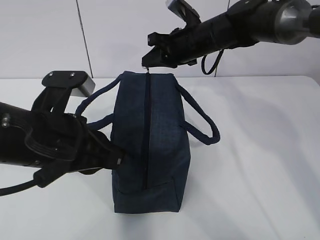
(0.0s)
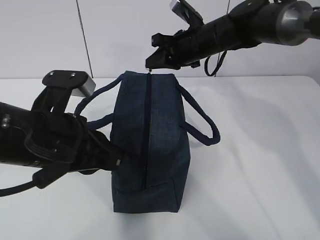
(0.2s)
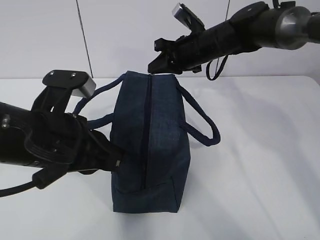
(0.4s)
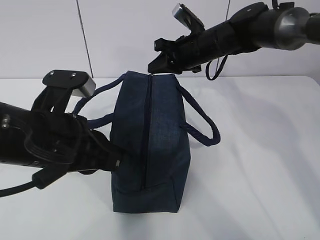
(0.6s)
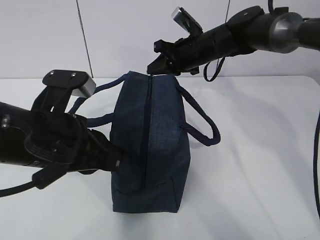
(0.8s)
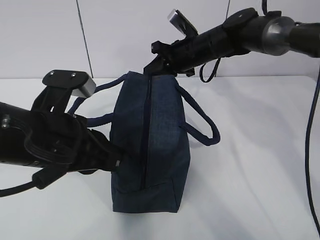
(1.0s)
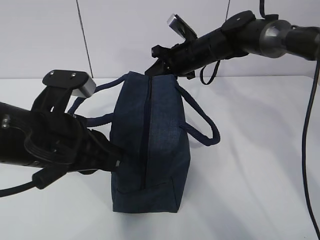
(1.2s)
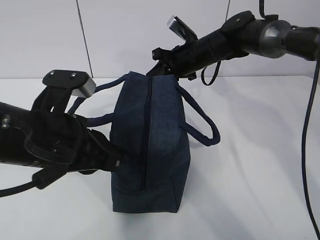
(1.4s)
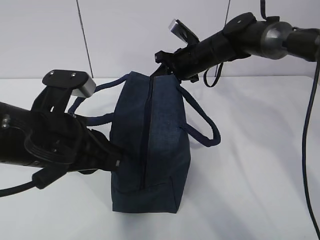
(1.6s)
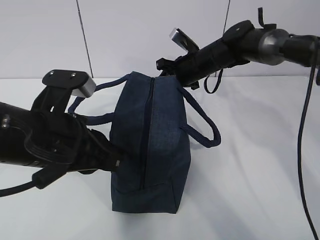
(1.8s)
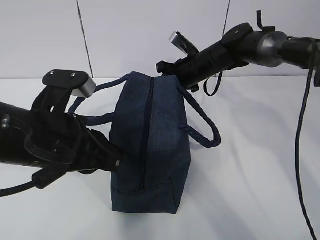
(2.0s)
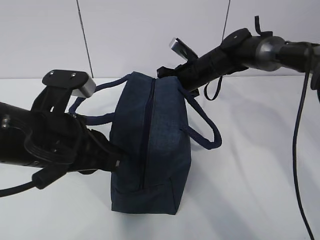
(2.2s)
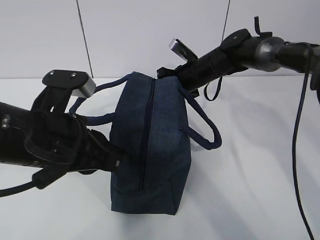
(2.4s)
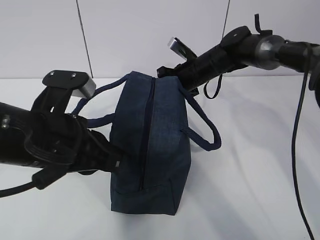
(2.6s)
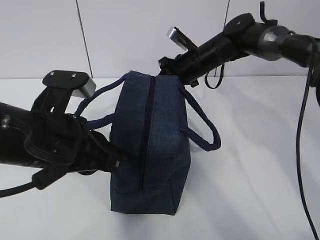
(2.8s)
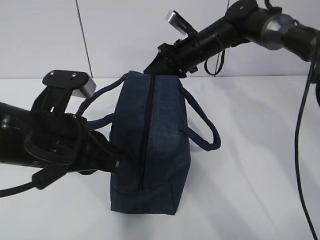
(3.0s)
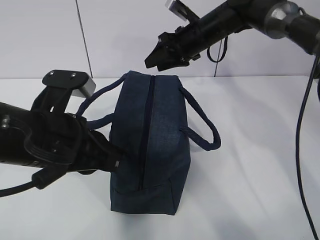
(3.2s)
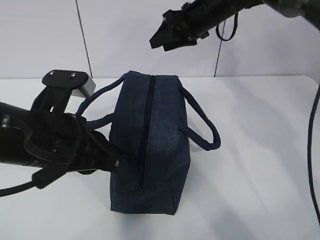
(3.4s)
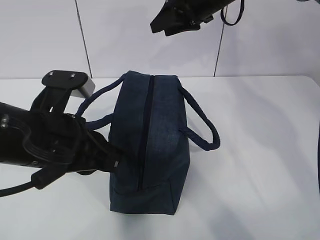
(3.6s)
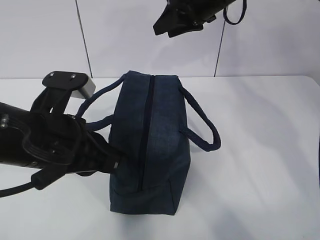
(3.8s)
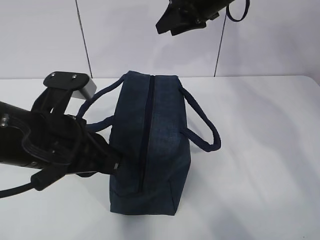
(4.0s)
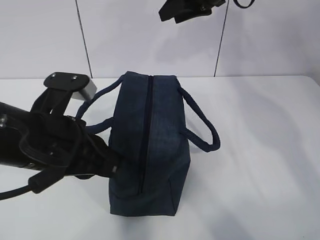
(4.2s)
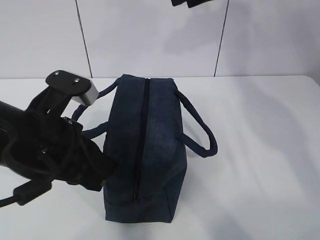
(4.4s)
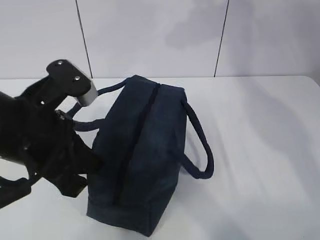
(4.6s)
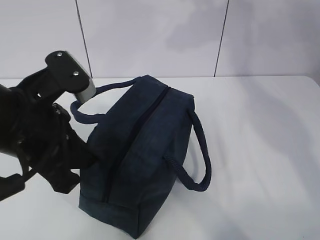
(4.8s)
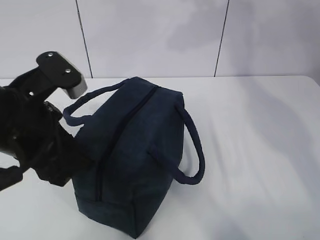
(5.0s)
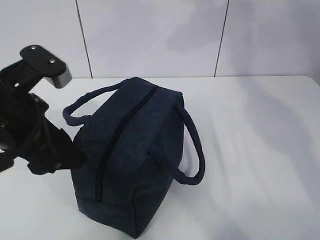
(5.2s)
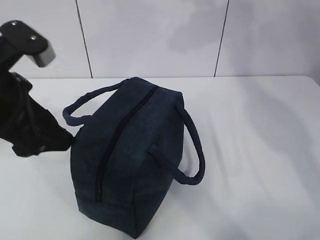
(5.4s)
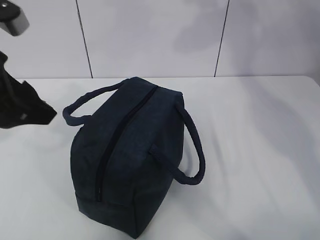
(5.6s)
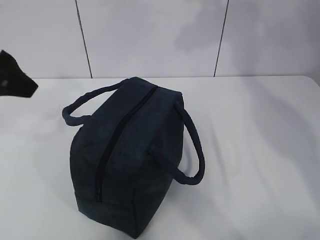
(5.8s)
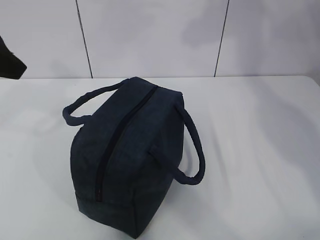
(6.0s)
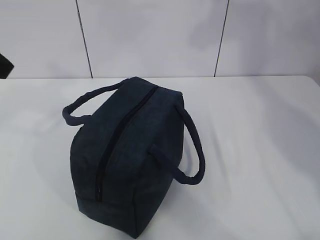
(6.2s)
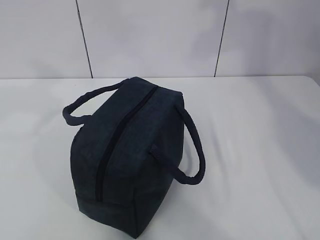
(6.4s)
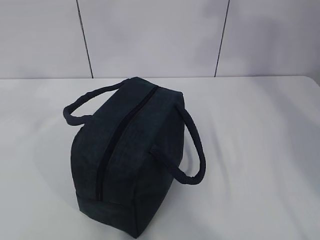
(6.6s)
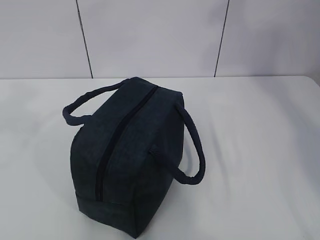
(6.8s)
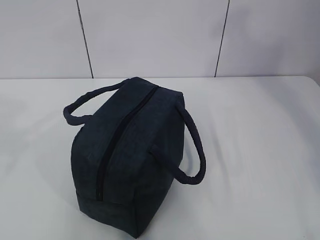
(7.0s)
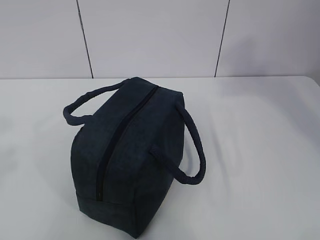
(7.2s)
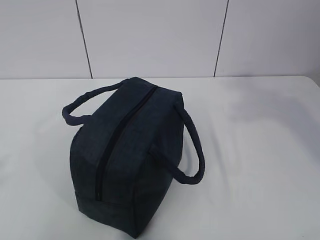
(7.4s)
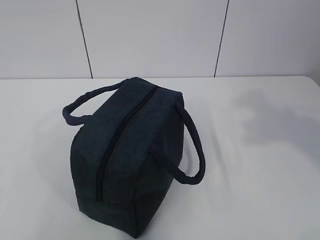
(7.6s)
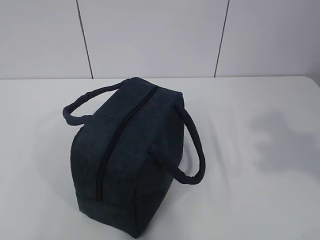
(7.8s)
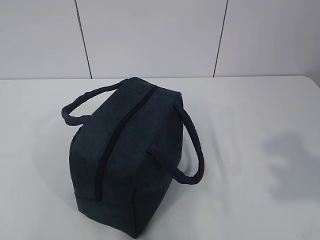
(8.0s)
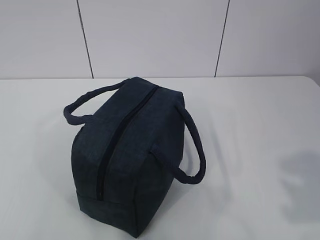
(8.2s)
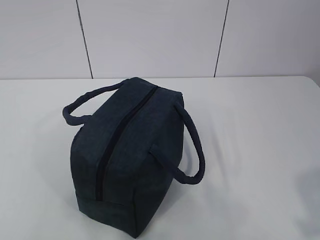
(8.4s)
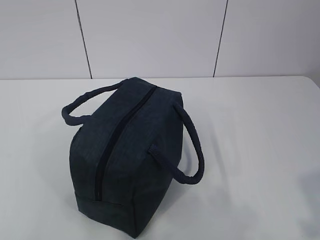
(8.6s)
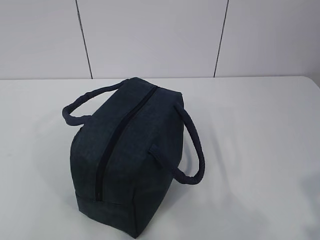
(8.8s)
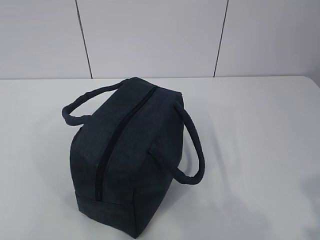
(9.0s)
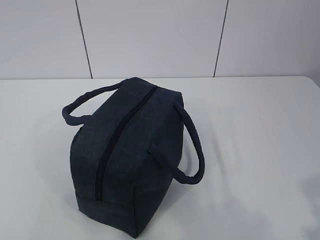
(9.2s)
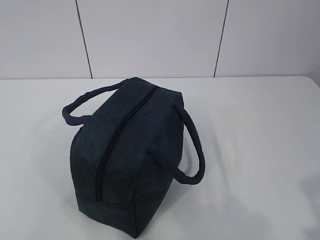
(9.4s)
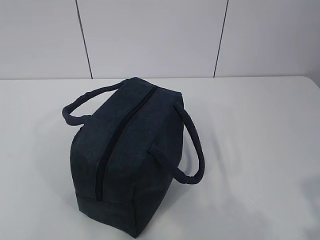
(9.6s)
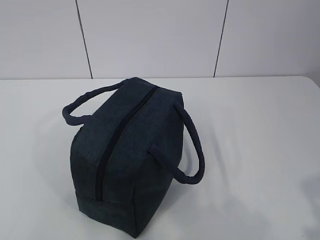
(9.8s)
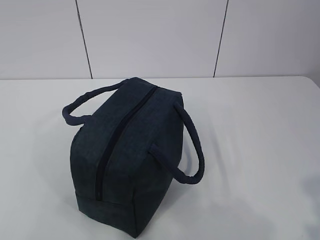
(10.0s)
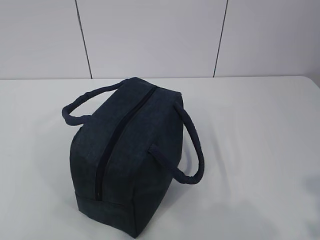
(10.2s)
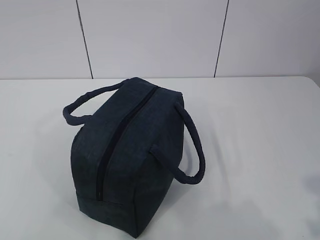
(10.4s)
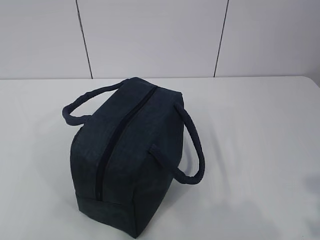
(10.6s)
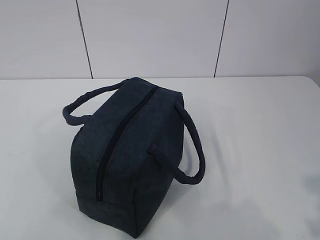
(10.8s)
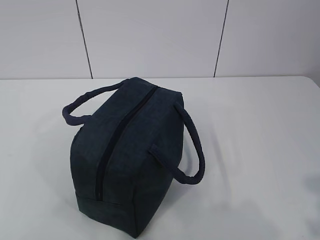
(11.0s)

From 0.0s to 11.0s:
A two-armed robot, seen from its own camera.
From 0.0s to 1.6s: The right gripper travels downward by roughly 5 cm.
From 1.6s to 3.2s: The right gripper travels upward by roughly 5 cm, and opens.
From 3.2s to 4.8s: The right gripper is displaced upward and backward by some 20 cm.
From 4.8s to 6.2s: The left gripper travels upward and to the left by some 15 cm, and opens up, while the right gripper travels backward and upward by approximately 10 cm.
From 6.2s to 7.8s: The two grippers go about 25 cm backward.
From 7.8s to 9.4s: The right gripper travels downward and backward by roughly 10 cm.
